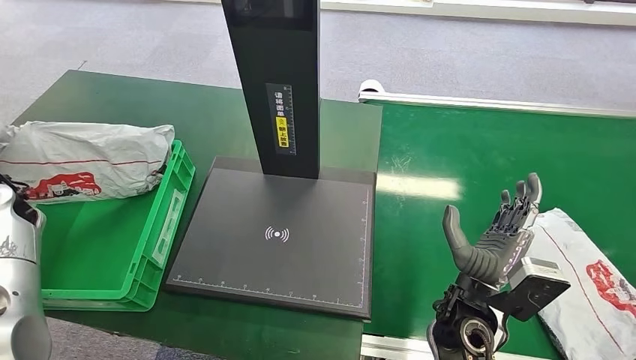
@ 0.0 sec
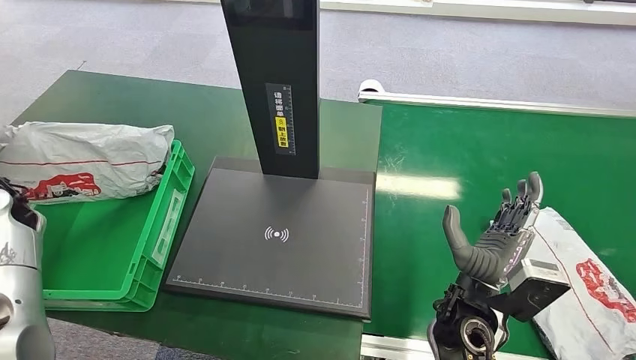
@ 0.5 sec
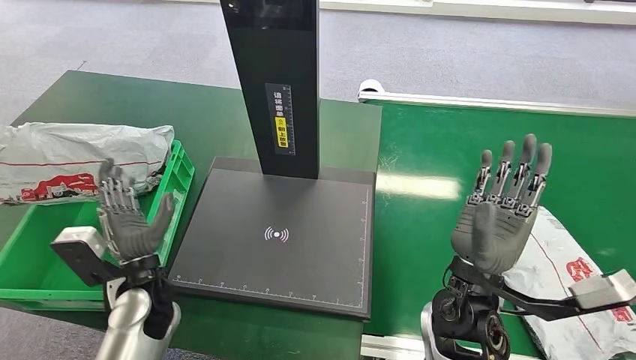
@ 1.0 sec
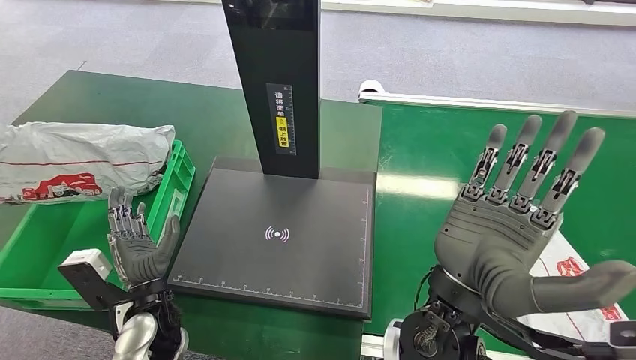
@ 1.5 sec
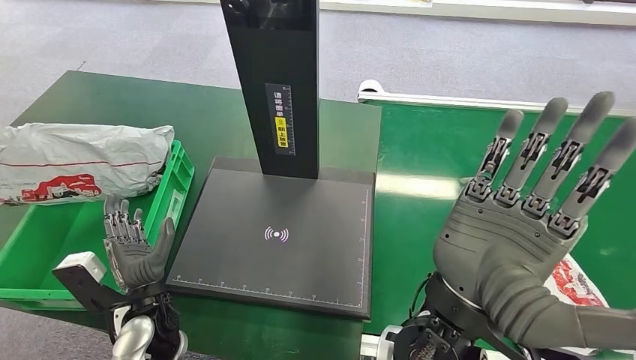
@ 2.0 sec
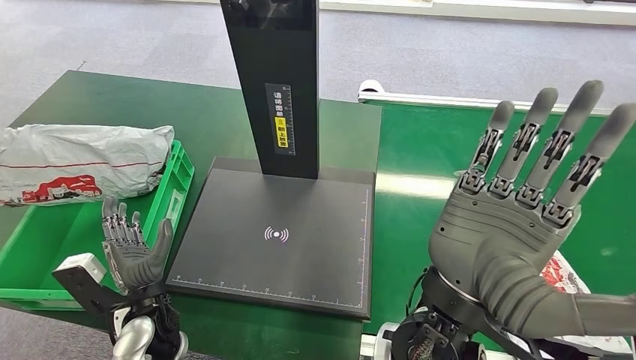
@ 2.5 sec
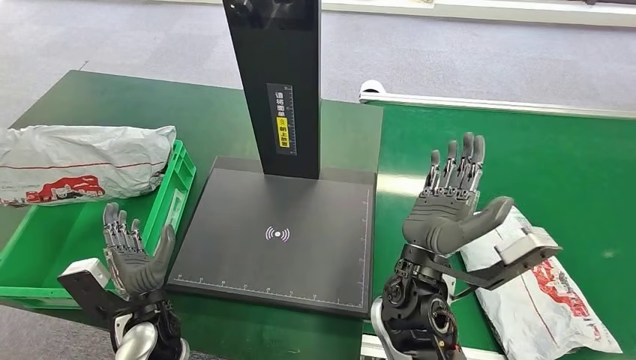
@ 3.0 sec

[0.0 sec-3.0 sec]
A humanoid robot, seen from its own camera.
Step, 0.0 sec to 3.0 sec: Place the package into the parcel locker.
1.5 sec to 3.0 sec: The right hand shifts some 10 cm downward and forward.
